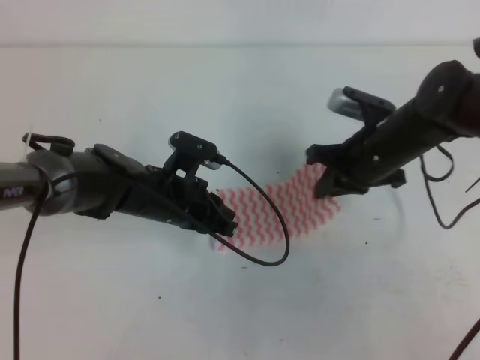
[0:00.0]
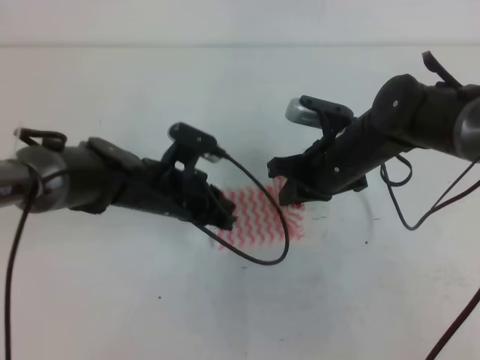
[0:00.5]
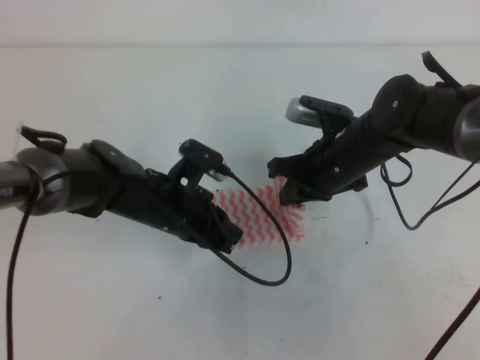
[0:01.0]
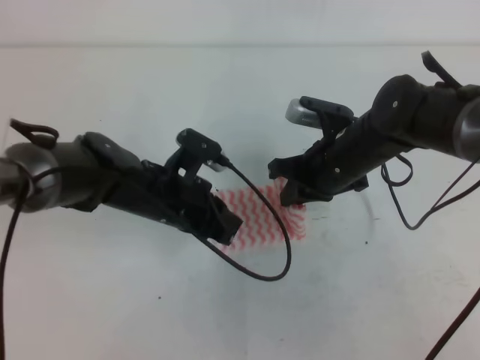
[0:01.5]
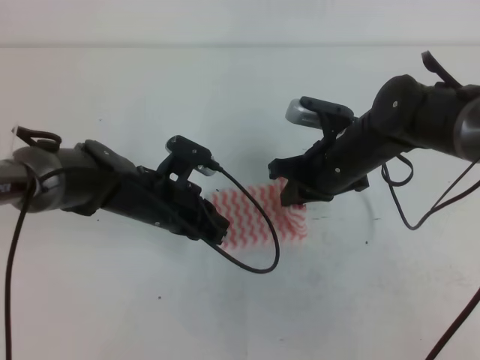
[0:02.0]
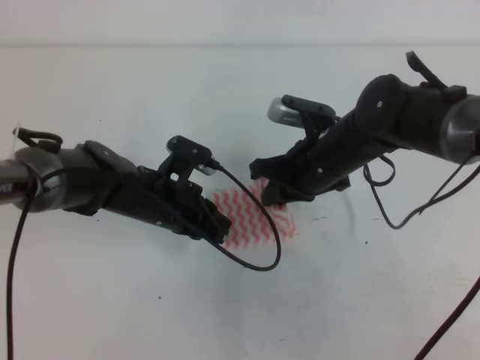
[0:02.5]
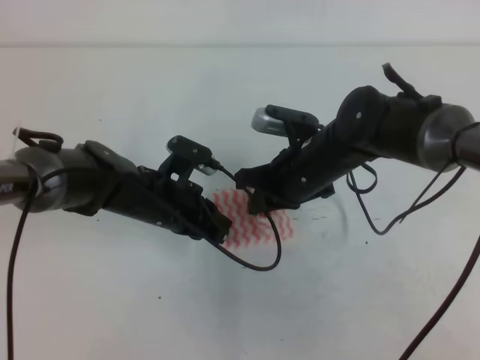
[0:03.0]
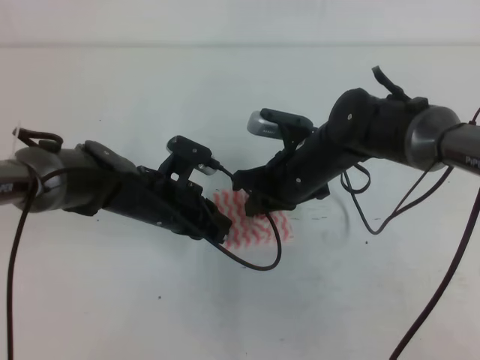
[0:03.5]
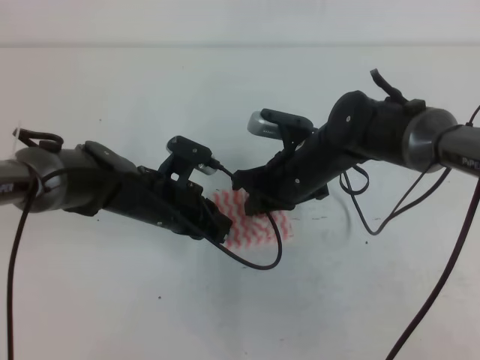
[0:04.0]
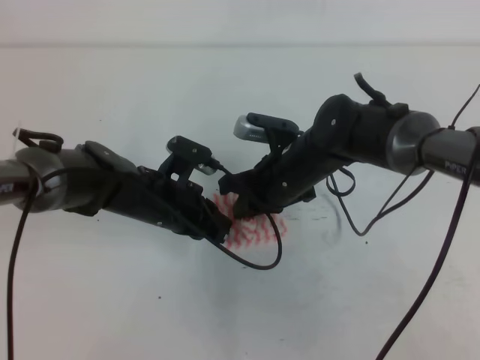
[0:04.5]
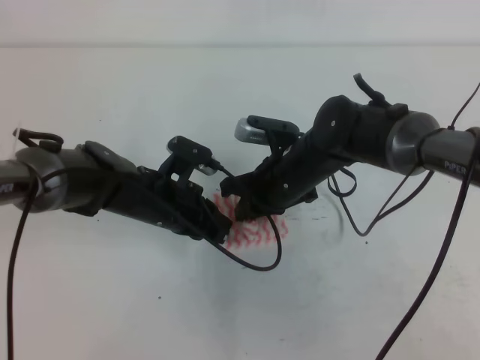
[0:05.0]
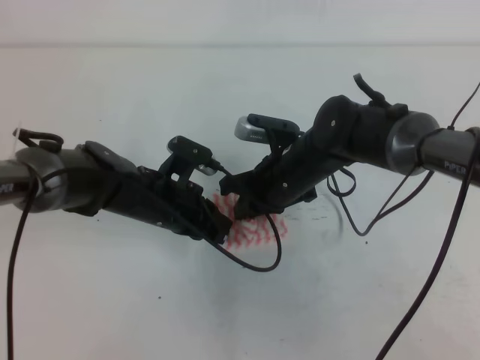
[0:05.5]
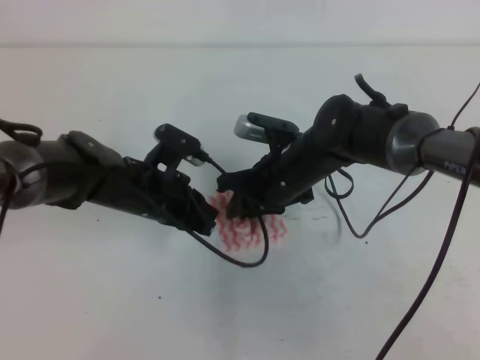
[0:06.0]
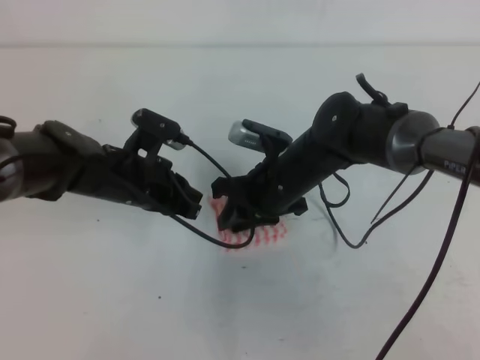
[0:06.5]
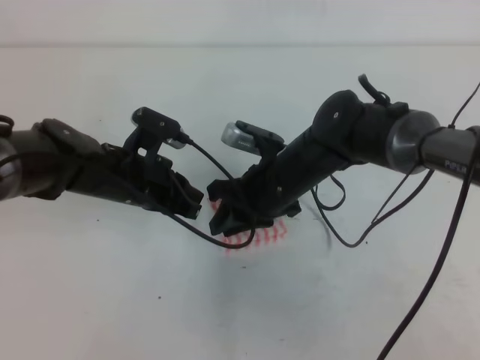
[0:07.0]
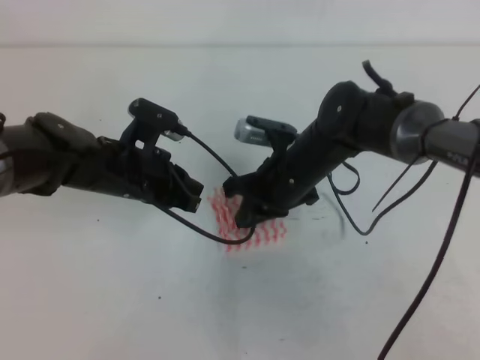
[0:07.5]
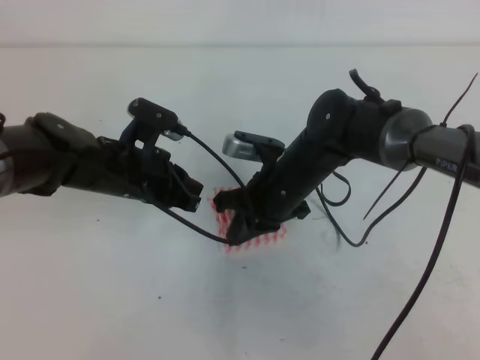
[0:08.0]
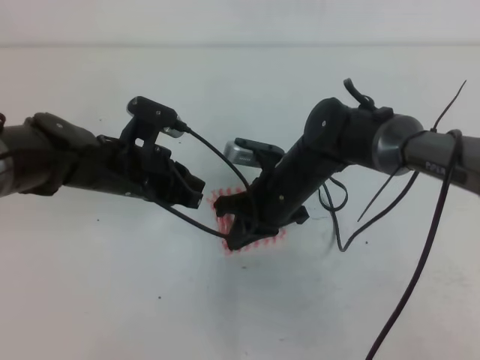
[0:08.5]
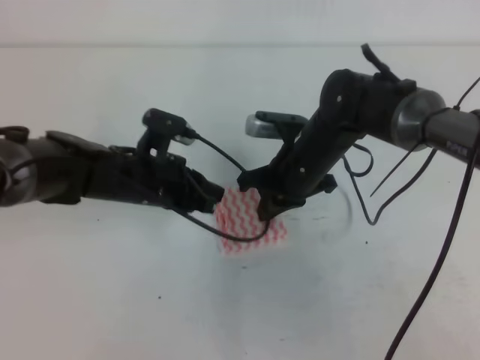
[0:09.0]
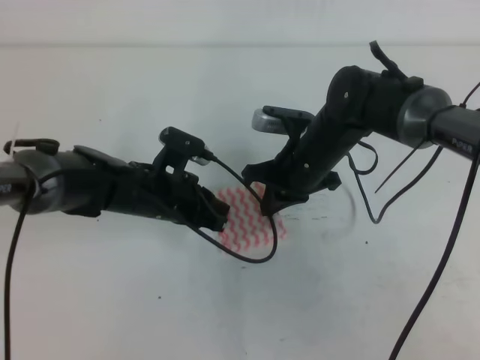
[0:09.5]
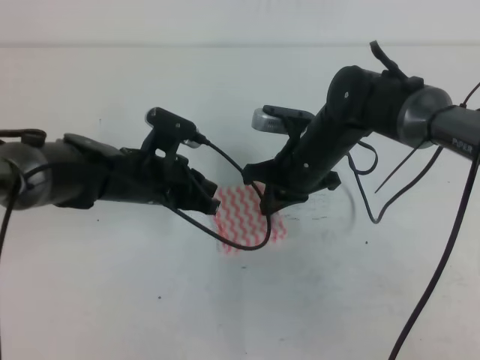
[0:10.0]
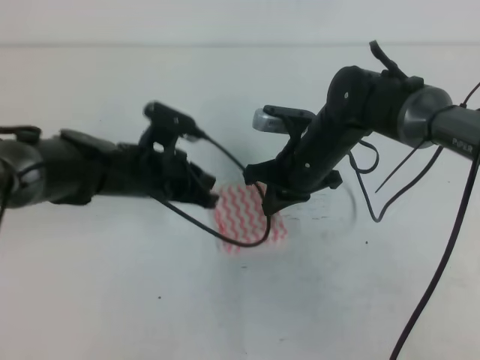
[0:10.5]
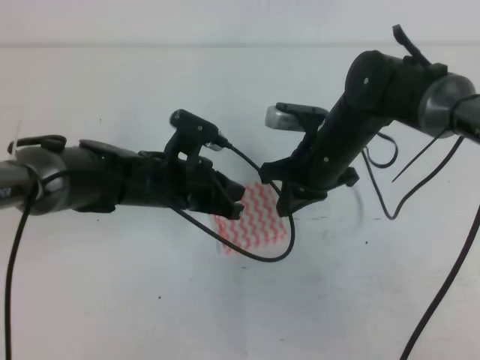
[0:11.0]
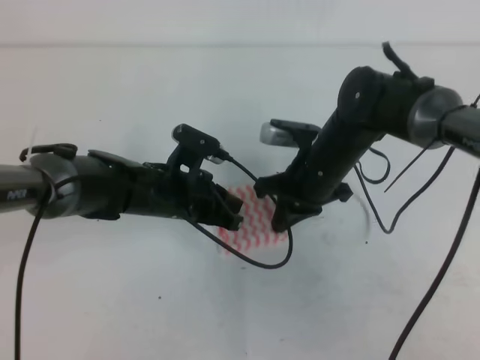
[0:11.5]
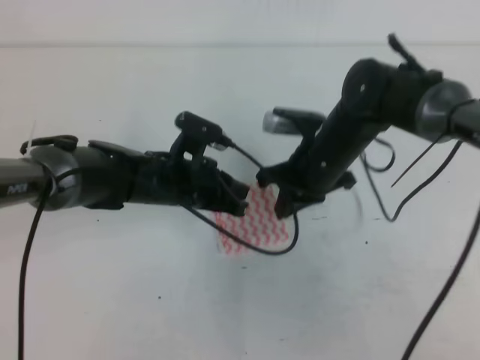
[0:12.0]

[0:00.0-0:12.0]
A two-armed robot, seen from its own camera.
0:00.0 to 0:02.0: The grippers move only a little.
0:02.0 to 0:04.0: The grippers stay close to where they were, moving slightly.
0:04.0 to 0:06.0: The right gripper opens.
0:06.0 to 0:08.0: The right gripper closes its fingers.
0:10.0 to 0:12.0: There are only small adjustments of the grippers.

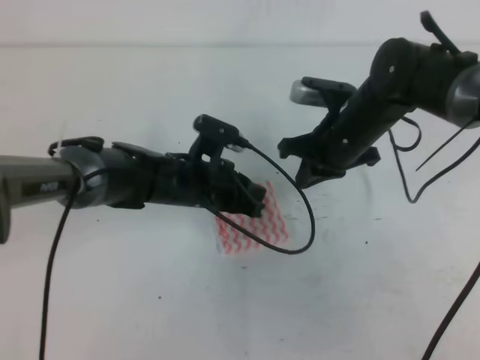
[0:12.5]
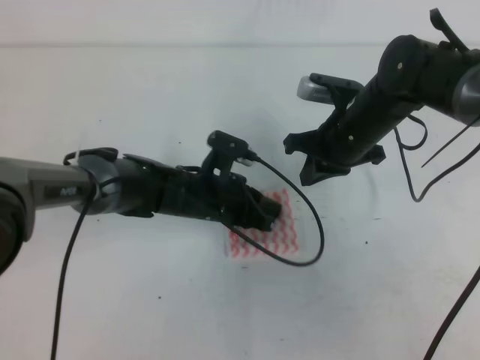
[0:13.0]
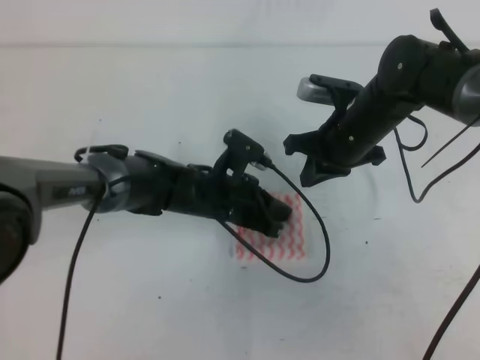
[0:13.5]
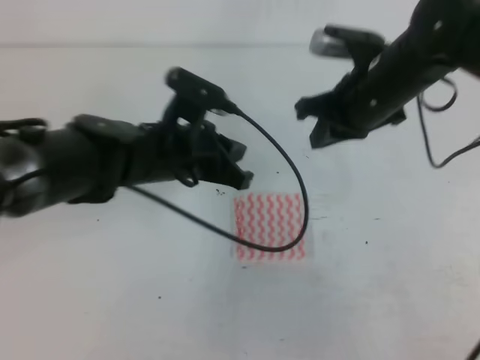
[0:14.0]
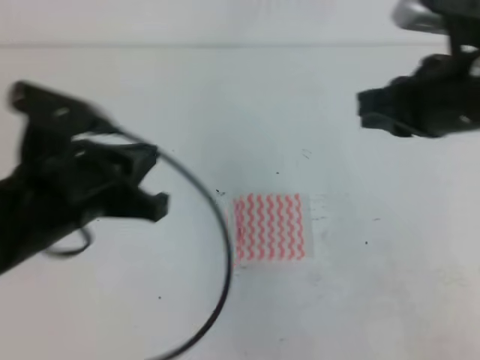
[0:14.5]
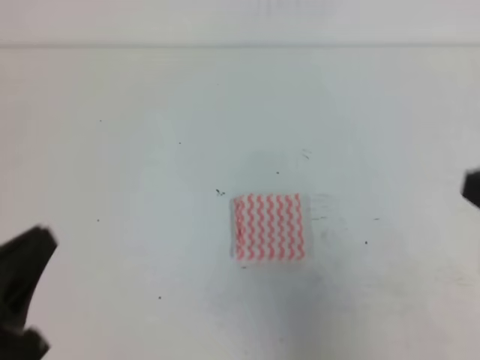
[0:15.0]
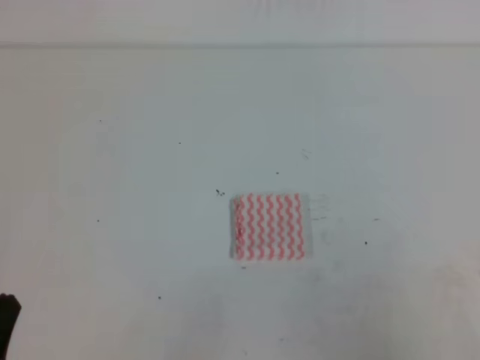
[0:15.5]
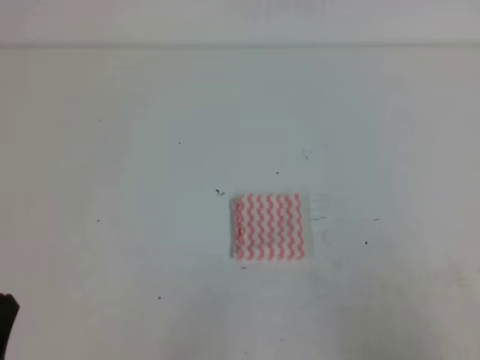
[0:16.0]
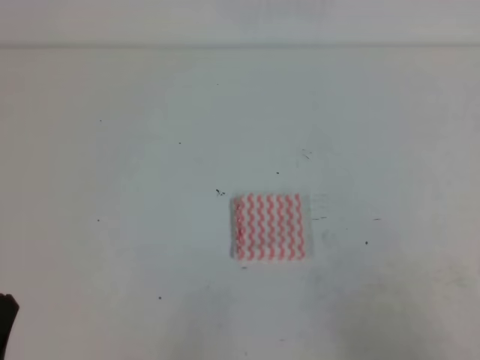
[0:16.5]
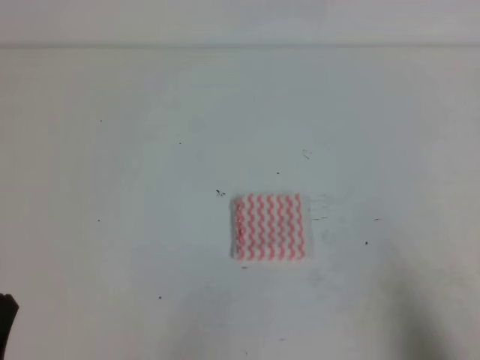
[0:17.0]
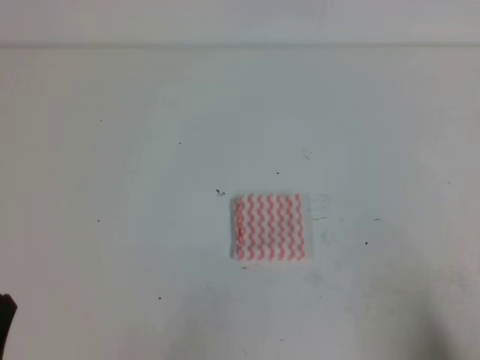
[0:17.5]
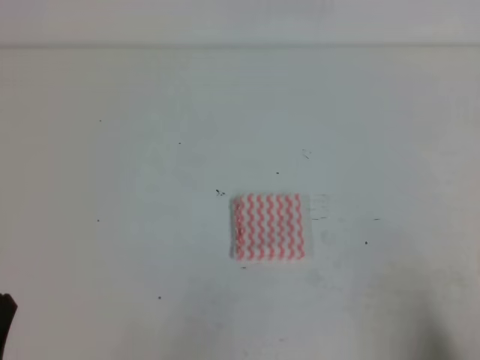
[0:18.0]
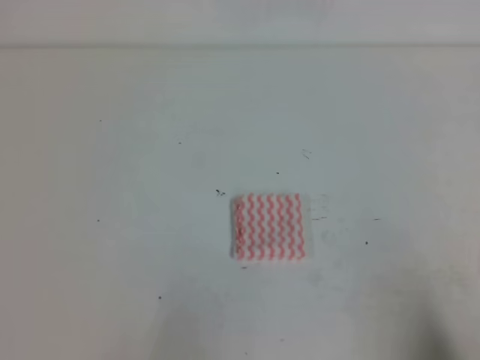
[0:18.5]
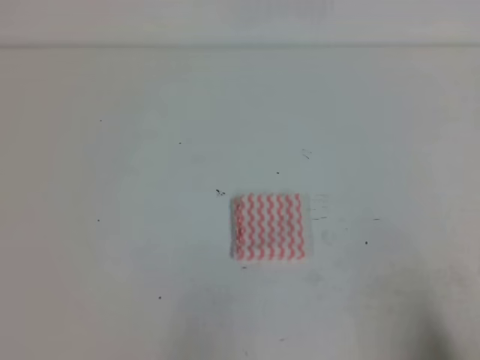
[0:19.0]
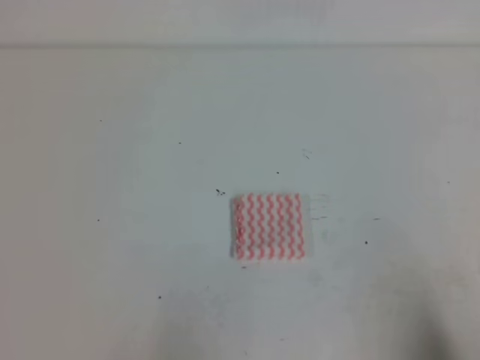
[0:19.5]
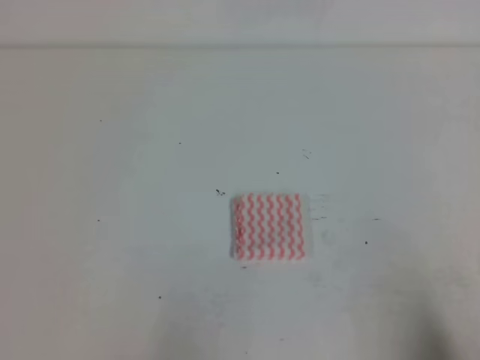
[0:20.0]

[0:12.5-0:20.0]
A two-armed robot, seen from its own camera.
Step, 0:12.5 to 0:20.0: Fold the towel.
0:12.5 to 0:14.5: The right gripper travels upward, backward and to the right by roughly 20 cm, while the left gripper is displaced backward, upward and to the left by some 25 cm.
0:14.5 to 0:16.5: The right gripper is displaced backward, downward and to the right by roughly 30 cm. Meanwhile the left gripper is displaced backward, downward and to the left by roughly 20 cm.
0:16.5 to 0:18.0: The right gripper goes some 5 cm downward.

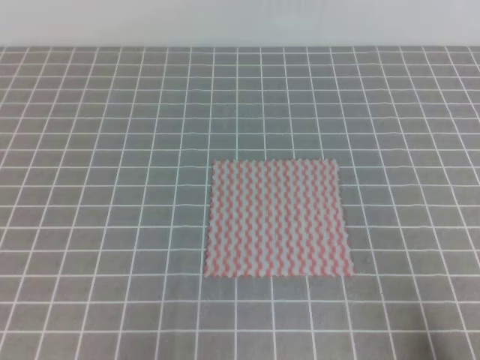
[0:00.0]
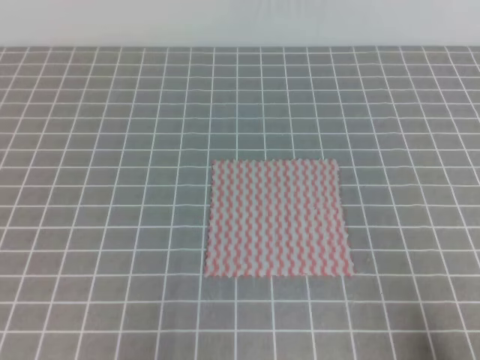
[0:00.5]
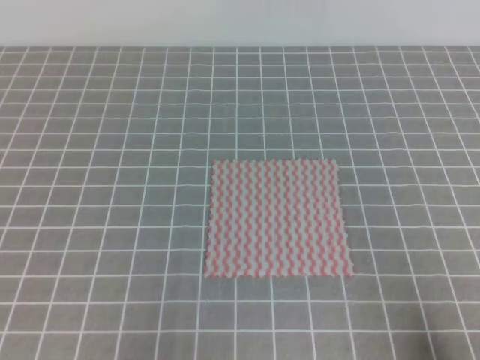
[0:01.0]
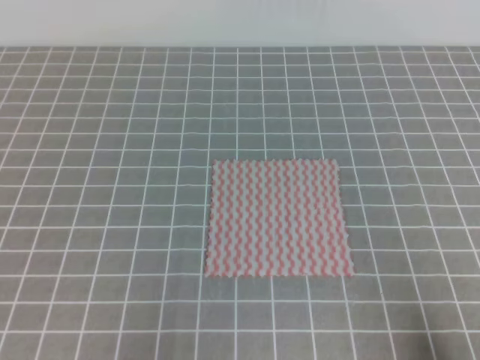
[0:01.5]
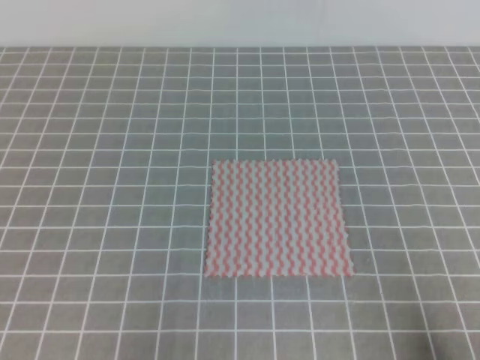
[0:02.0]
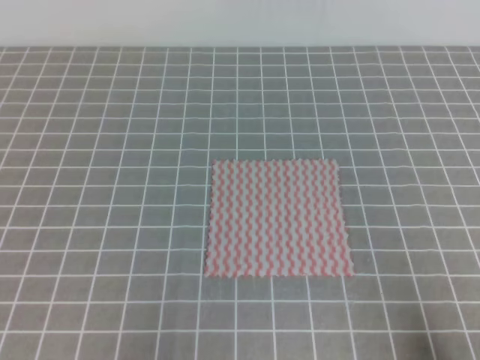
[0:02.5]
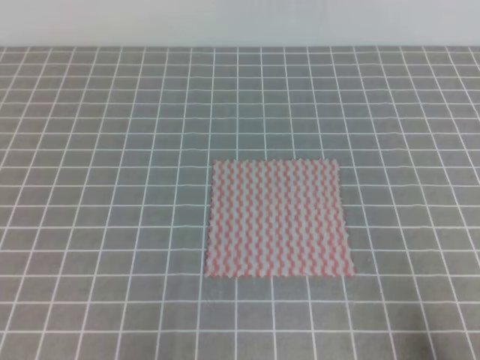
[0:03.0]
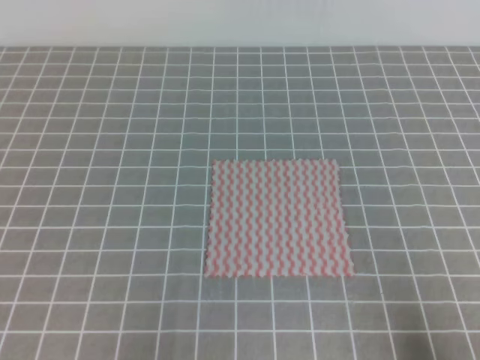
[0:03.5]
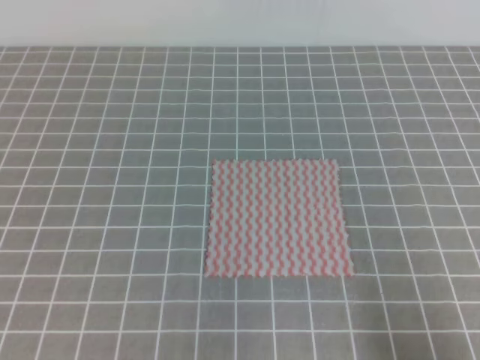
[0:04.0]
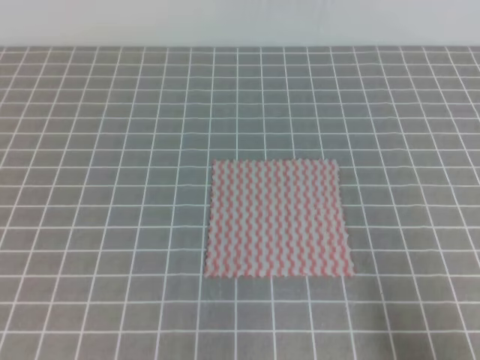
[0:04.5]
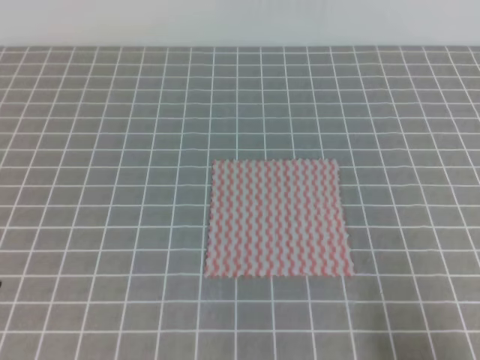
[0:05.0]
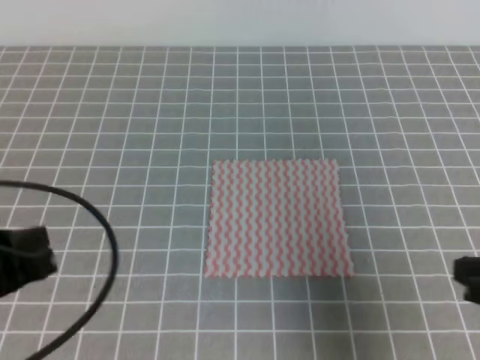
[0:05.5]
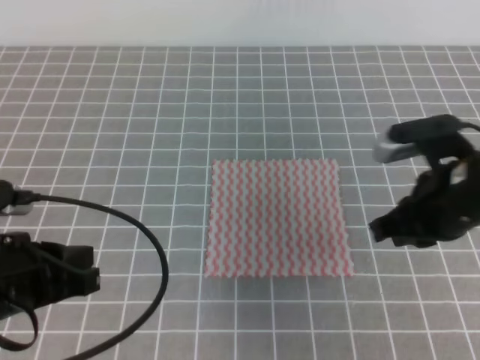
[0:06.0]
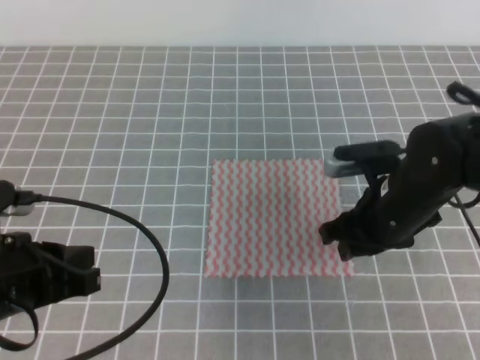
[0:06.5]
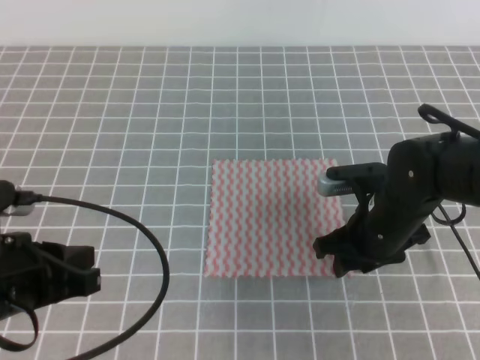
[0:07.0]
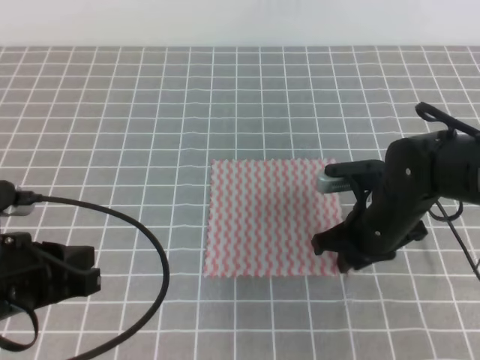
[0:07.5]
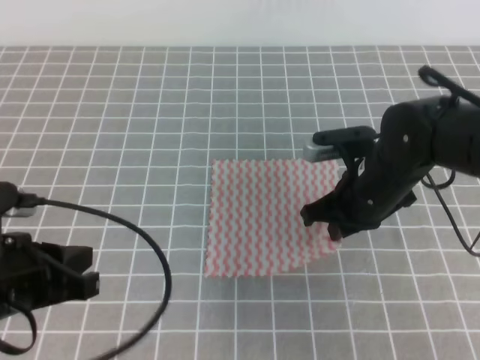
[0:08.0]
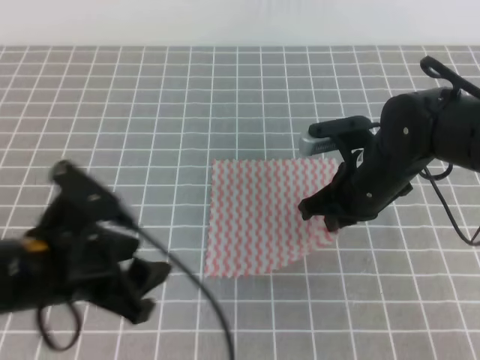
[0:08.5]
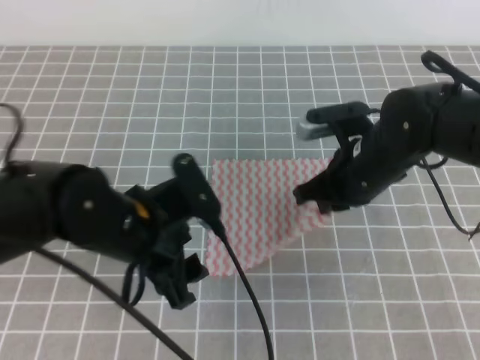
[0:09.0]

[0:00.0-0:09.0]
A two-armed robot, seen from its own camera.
Step, 0:00.0 to 0:08.0: Fold the towel upwards with the both gripper.
0:00.0 to 0:02.0: Both grippers stay put.
0:04.5 to 0:07.0: The right gripper travels forward and to the left by about 30 cm, and opens. The left gripper moves forward and to the right, some 10 cm.
0:07.0 to 0:09.0: The right gripper is displaced upward by approximately 5 cm, and closes; the left gripper shifts some 15 cm to the right and forward, and opens.
